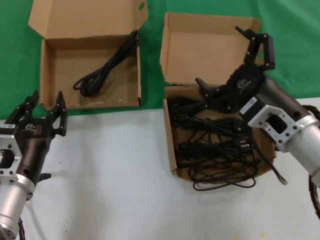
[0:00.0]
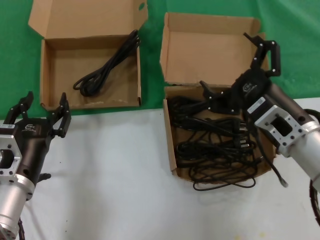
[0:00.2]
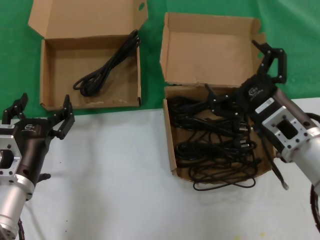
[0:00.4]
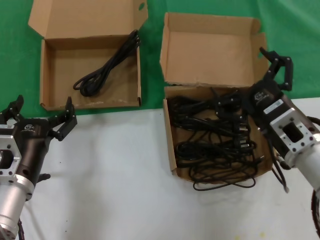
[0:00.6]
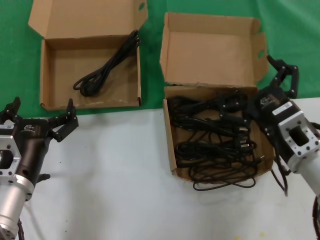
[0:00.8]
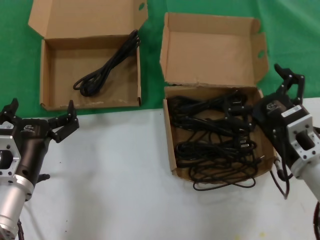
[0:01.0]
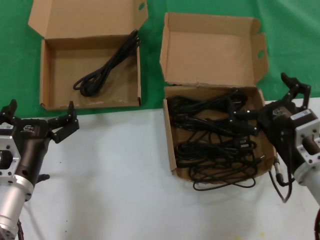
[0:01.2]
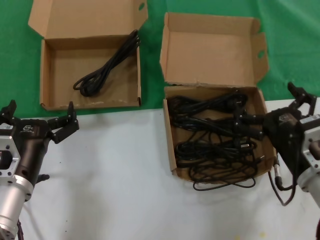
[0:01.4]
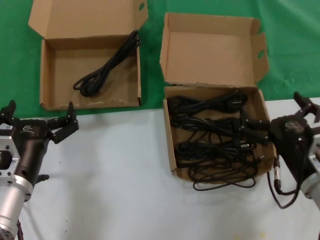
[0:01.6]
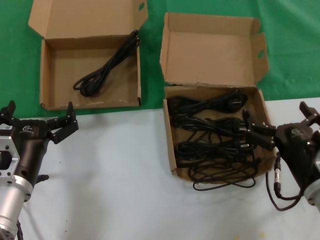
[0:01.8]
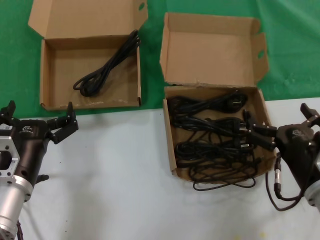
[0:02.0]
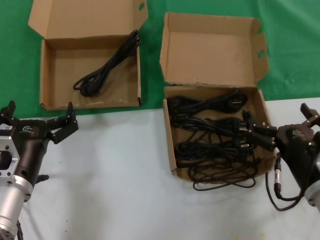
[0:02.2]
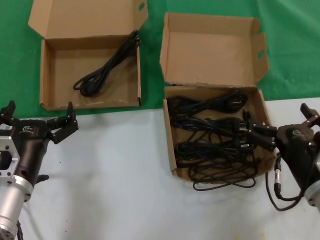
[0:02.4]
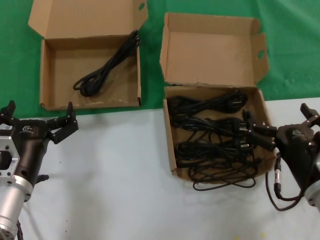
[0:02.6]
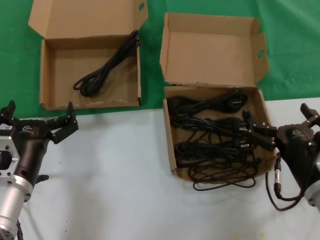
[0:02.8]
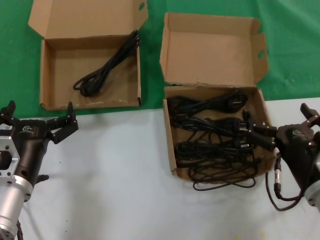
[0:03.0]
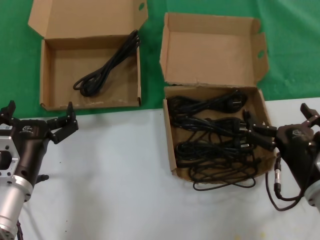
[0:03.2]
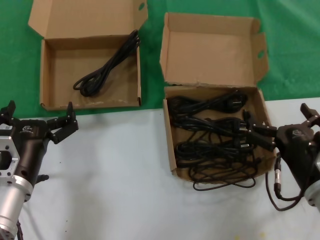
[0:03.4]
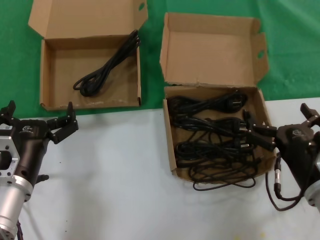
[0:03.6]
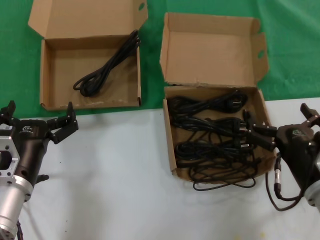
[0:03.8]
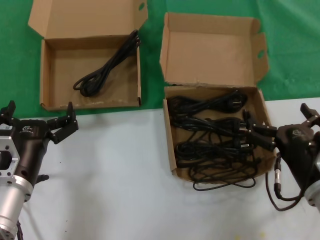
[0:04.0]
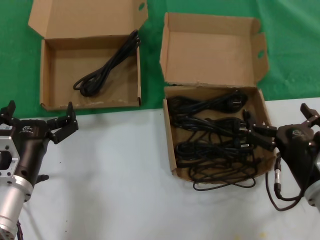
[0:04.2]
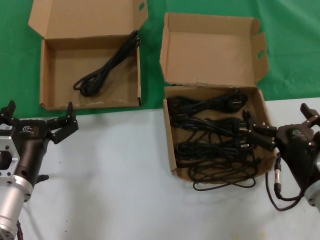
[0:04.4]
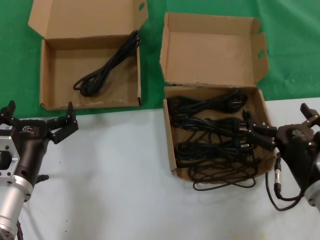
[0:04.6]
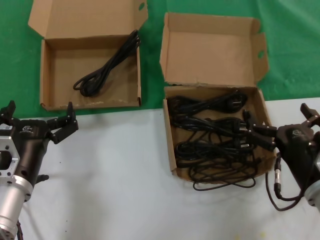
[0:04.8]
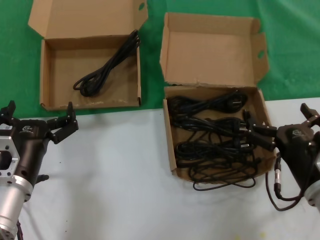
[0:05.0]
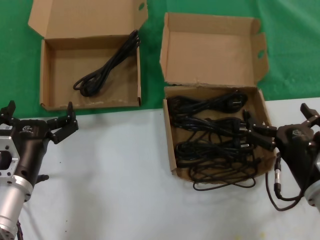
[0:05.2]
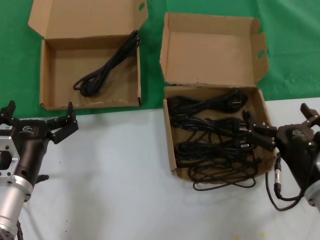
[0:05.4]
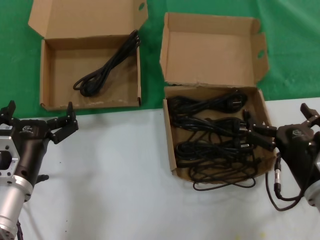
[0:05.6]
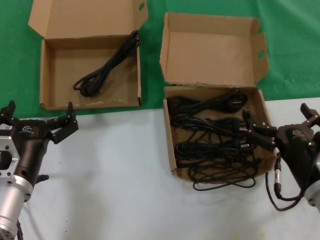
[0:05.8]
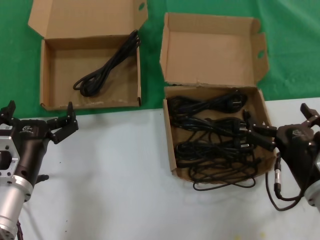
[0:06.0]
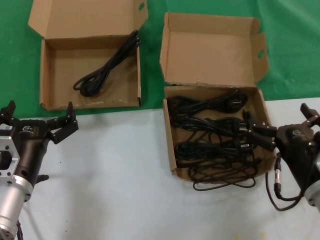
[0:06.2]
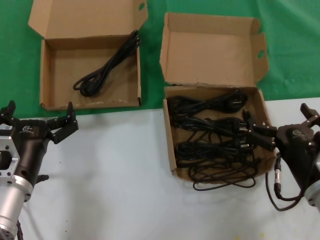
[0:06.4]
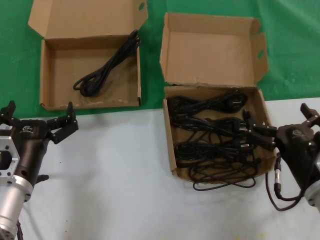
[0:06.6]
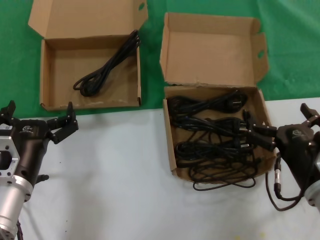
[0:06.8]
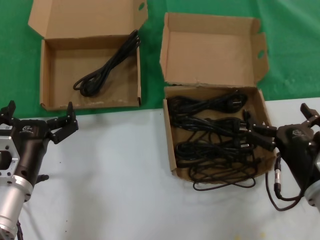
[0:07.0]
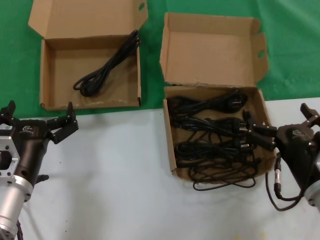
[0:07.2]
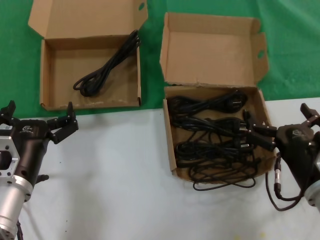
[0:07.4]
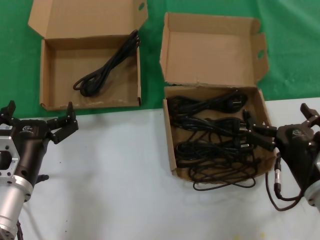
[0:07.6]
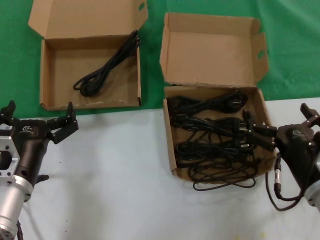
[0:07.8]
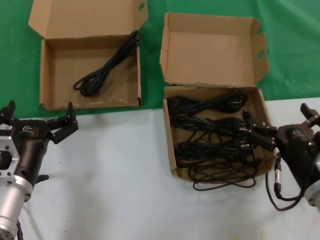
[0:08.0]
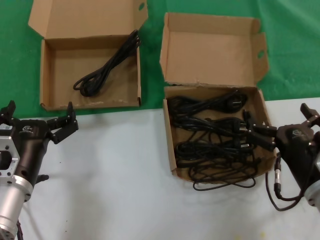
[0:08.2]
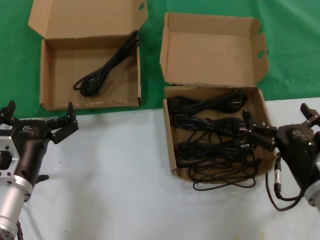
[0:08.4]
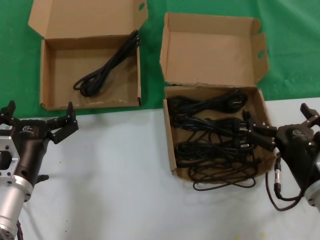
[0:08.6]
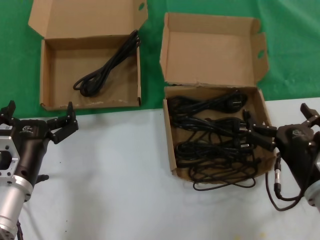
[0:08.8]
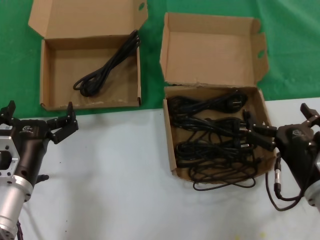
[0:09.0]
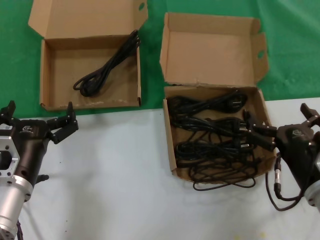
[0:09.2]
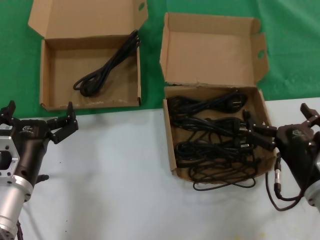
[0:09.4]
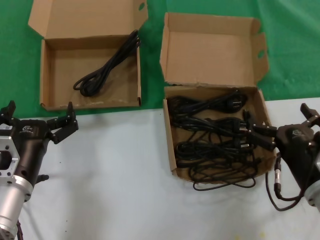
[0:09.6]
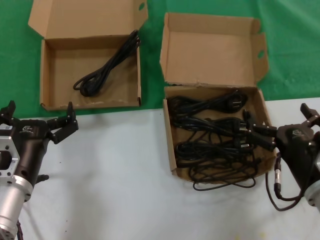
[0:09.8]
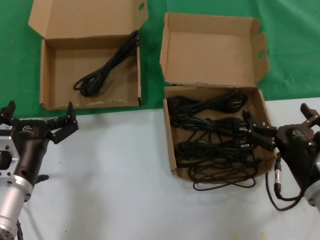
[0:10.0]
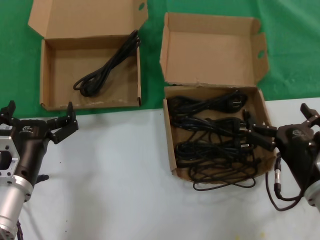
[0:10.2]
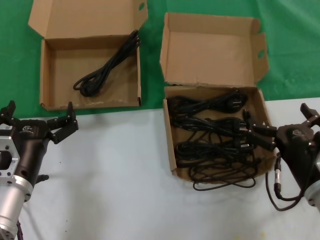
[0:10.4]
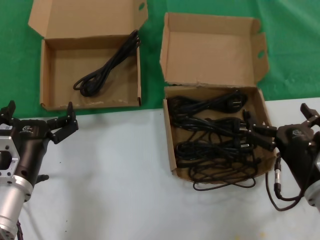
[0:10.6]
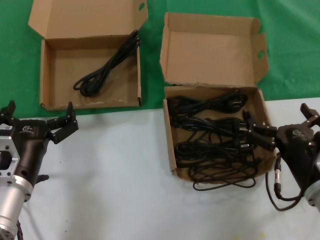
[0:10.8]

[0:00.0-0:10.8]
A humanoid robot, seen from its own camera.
Task of the whole recording: take the parts from the box containing them and put them into an empty box.
0:00.0 to 0:01.6: The right hand shifts approximately 10 cm downward.
0:01.6 to 0:03.0: The hands stay close to where they were, moving slightly.
0:03.0 to 0:10.8: Both hands stay about where they are.

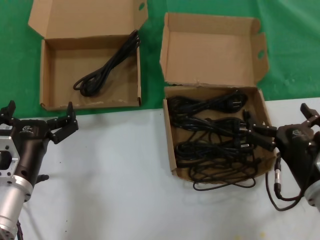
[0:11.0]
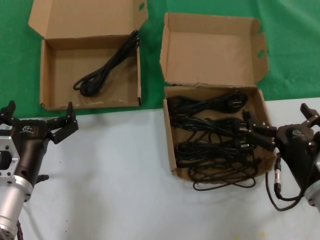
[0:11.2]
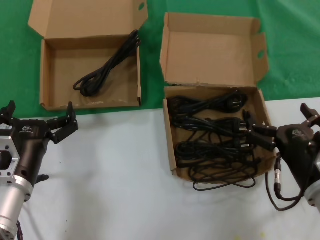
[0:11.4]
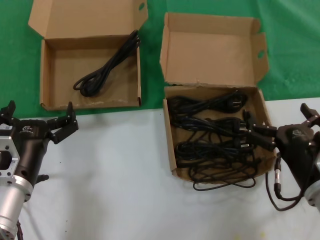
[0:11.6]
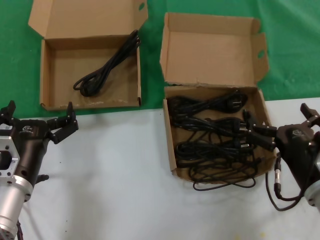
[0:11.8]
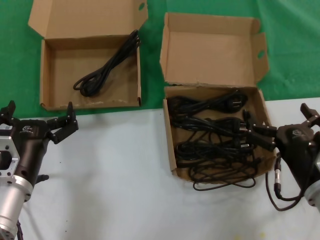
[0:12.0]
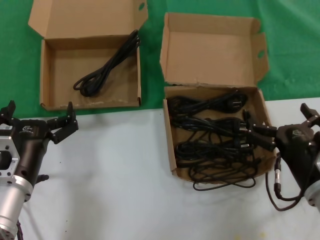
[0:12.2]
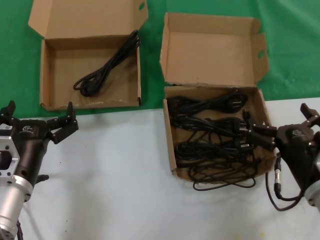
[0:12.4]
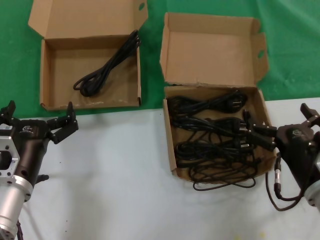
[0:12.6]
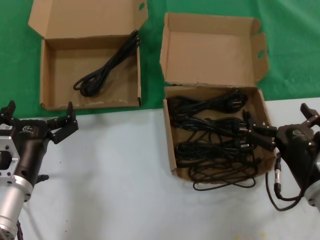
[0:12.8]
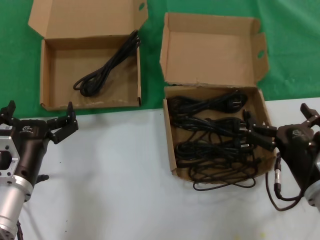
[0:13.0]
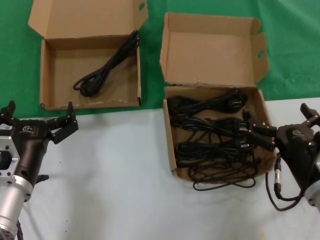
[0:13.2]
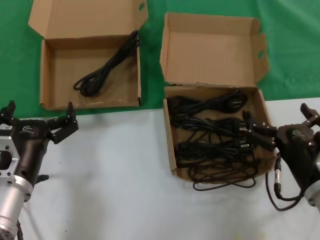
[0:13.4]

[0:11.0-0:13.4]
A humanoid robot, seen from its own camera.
Task of the whole recording: take the parts from the box containing them and put them into an empty box.
0:11.0 to 0:13.4: Both hands stay put.

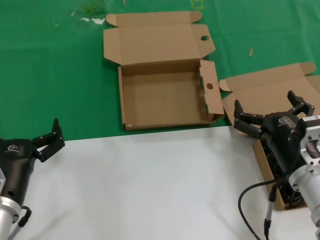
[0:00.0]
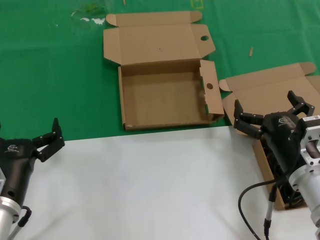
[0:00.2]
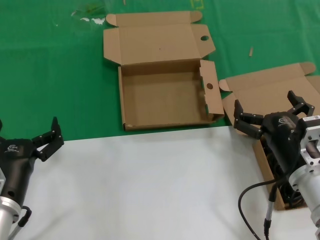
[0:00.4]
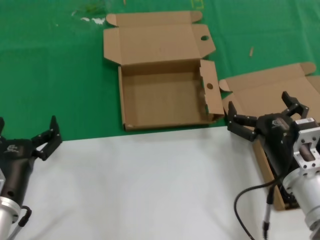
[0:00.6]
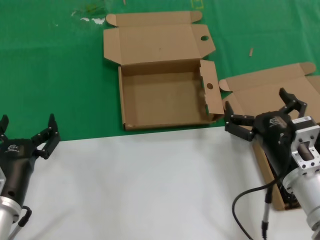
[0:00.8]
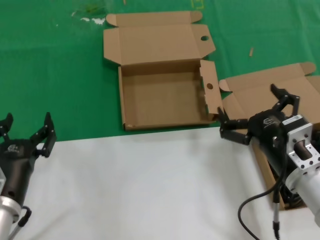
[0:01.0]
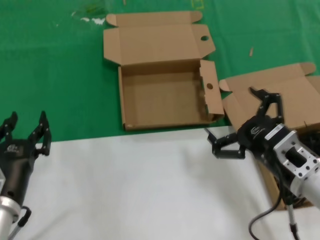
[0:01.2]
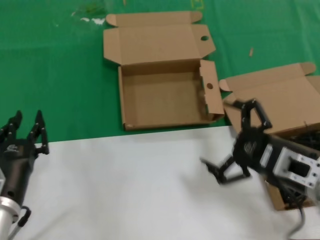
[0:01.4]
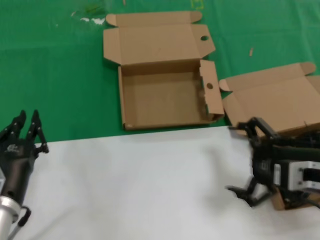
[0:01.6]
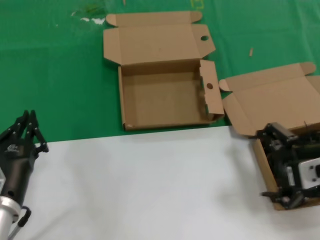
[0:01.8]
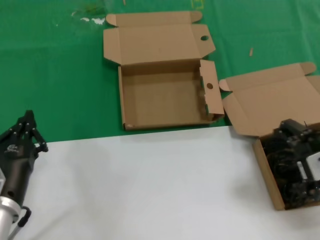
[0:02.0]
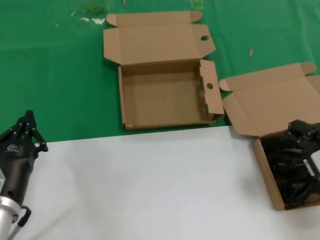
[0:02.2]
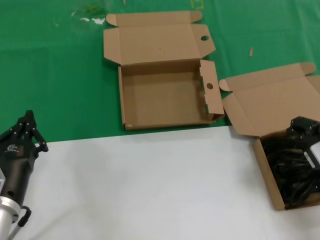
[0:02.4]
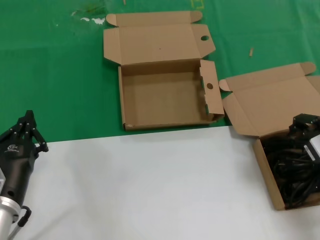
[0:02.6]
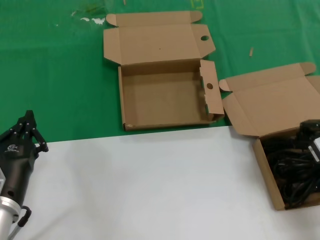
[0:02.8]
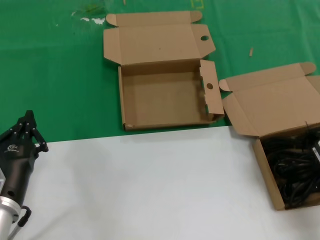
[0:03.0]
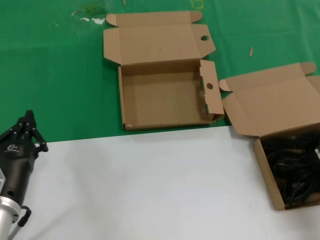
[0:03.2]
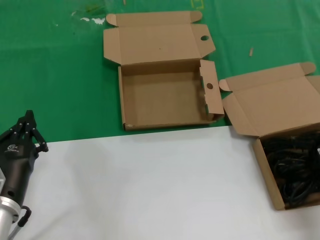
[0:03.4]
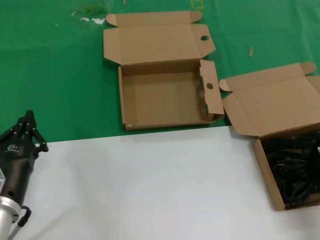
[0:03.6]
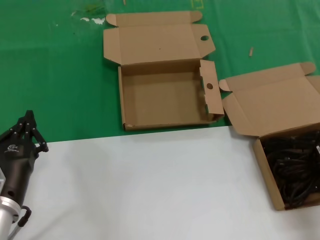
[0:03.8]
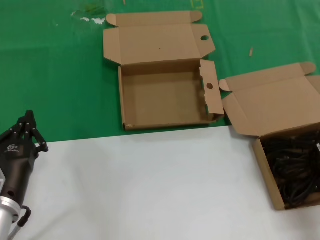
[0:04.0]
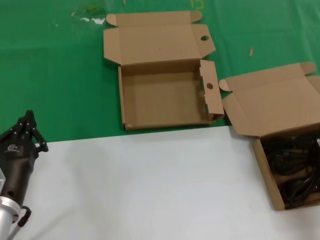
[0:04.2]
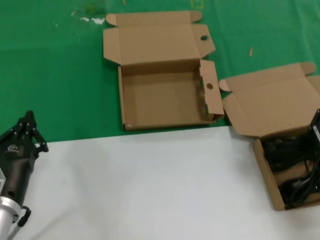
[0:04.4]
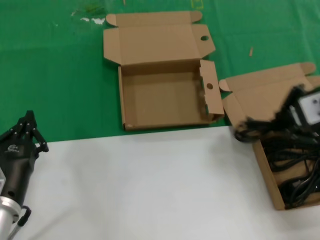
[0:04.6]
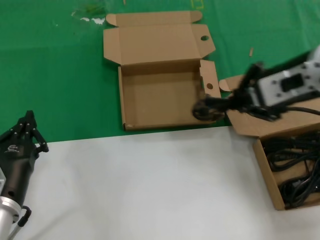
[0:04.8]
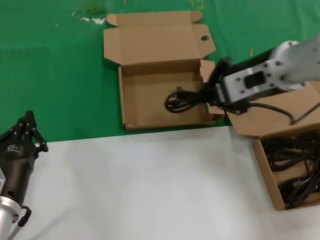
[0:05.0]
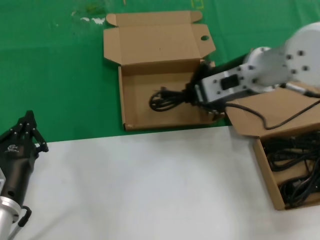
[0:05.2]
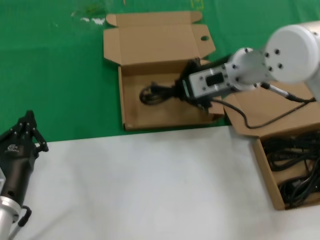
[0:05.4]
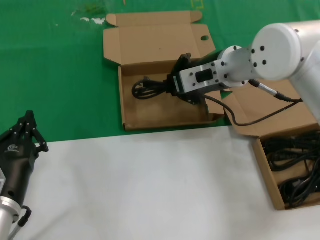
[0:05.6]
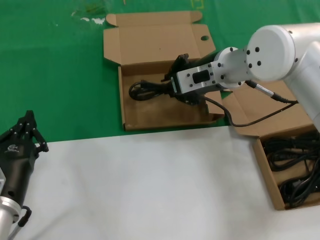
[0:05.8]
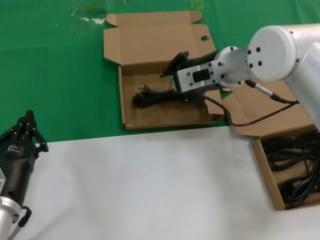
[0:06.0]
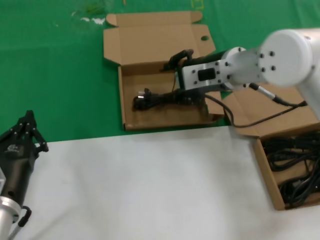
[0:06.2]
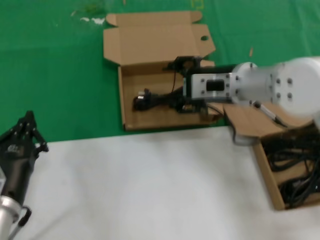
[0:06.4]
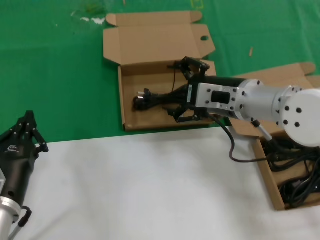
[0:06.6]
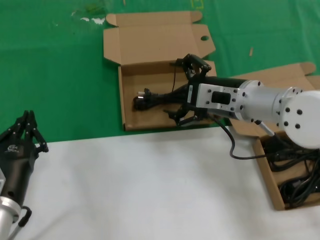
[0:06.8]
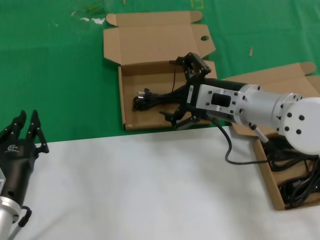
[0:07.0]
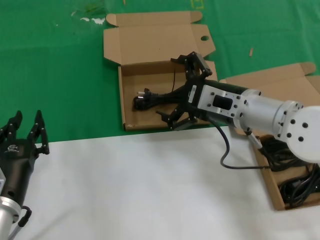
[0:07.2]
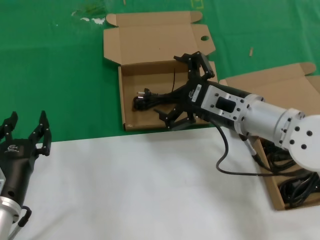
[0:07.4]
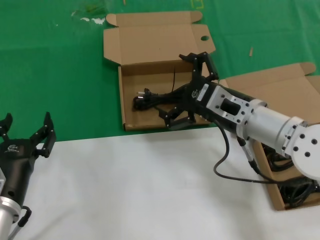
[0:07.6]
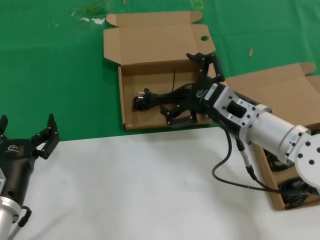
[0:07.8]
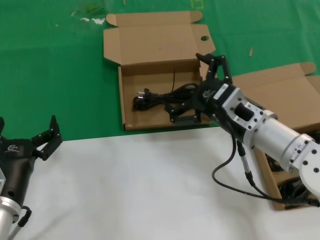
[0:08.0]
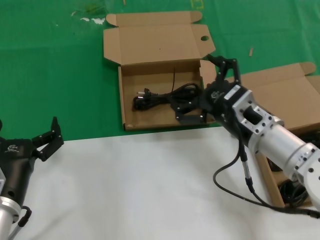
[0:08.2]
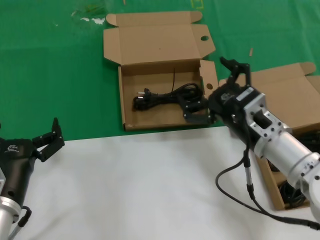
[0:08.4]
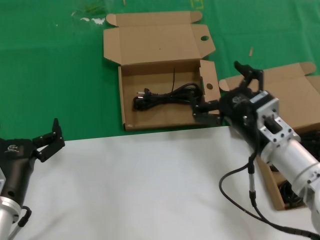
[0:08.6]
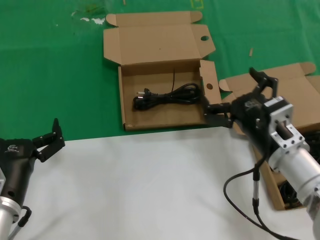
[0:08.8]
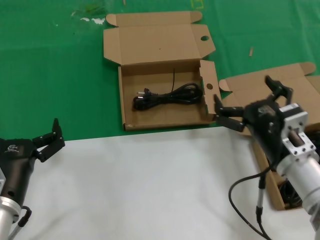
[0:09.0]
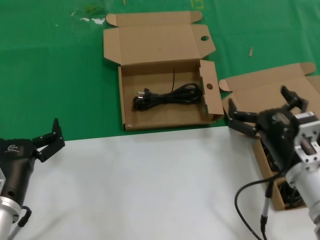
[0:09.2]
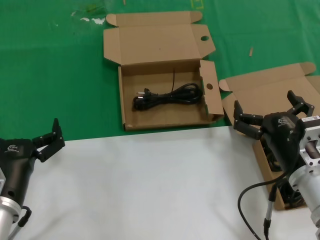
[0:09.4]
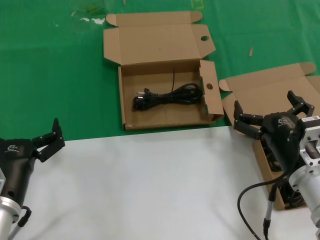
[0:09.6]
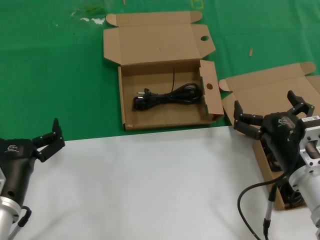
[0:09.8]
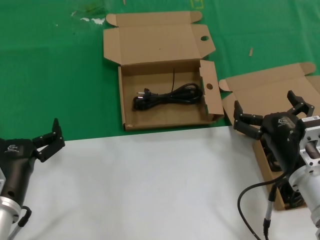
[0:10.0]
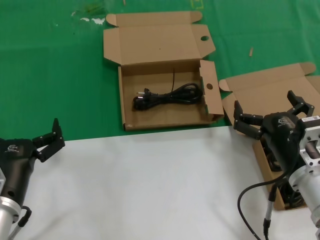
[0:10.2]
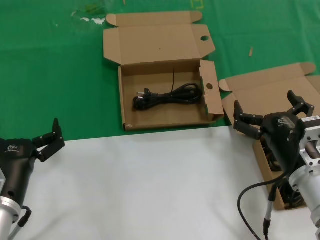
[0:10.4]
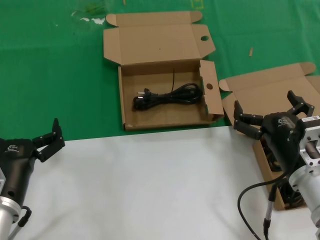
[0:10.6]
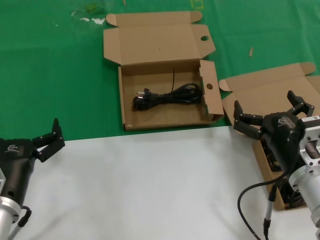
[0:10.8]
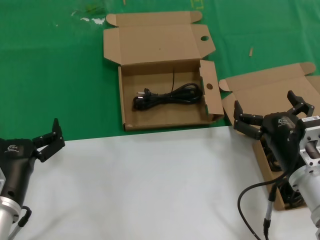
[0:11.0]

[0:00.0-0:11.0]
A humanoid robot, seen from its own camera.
Task of the whole recording: take the parts from the box containing them and put them into an empty box.
Step, 0:00.0 to 0:03.6: Grasp the data cable.
Step, 0:03.8 to 0:08.2: Place the data cable in the another box.
0:00.0 to 0:01.6: The right hand travels upward by roughly 10 cm.
0:01.6 to 0:03.2: The right hand goes some 10 cm forward, to the right and upward.
0:03.2 to 0:04.8: The right hand travels to the left and upward by some 15 cm.
0:04.8 to 0:06.2: The right hand goes roughly 15 cm forward, to the left and downward.
0:06.2 to 0:07.8: The right hand is displaced backward and downward by approximately 15 cm.
0:07.8 to 0:09.4: The right hand heads downward, backward and to the right, covering roughly 15 cm.
0:09.4 to 0:11.0: Neither hand changes place.
